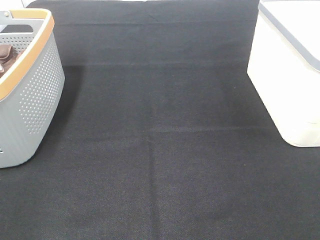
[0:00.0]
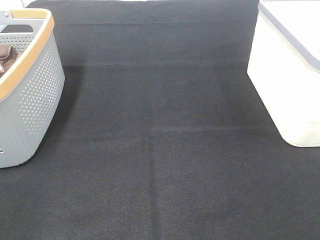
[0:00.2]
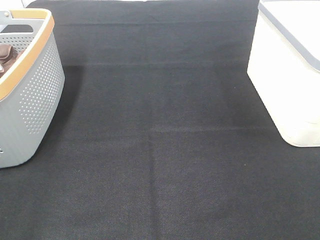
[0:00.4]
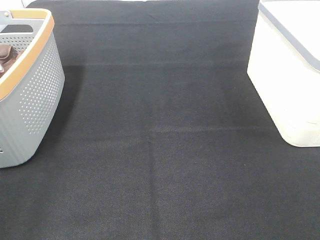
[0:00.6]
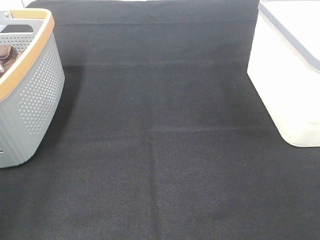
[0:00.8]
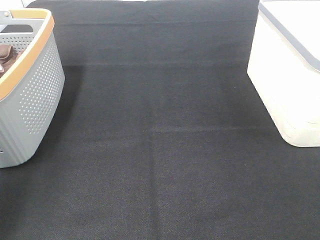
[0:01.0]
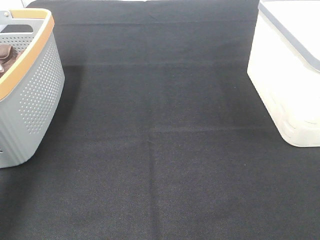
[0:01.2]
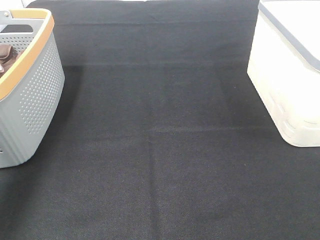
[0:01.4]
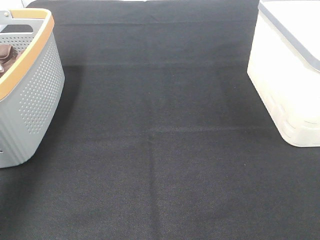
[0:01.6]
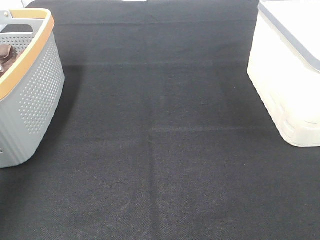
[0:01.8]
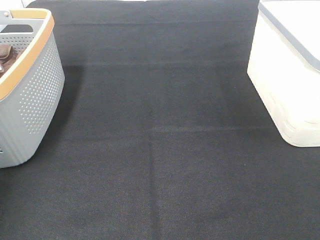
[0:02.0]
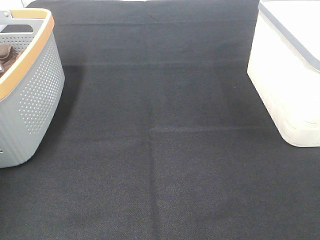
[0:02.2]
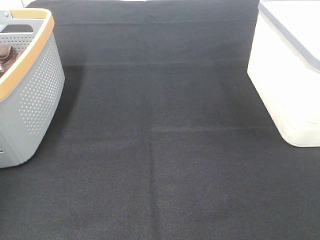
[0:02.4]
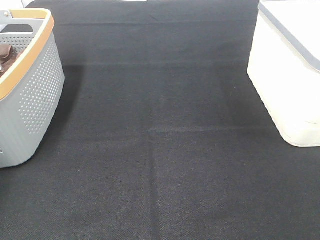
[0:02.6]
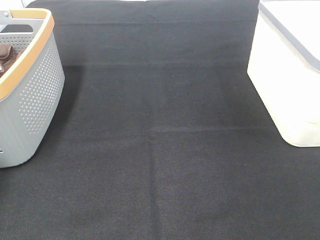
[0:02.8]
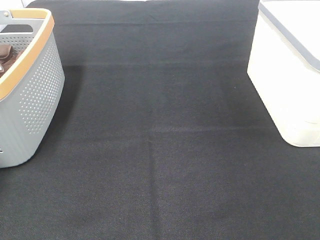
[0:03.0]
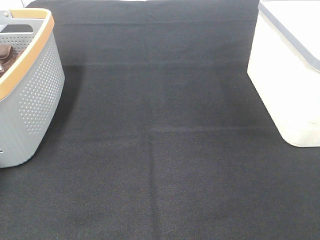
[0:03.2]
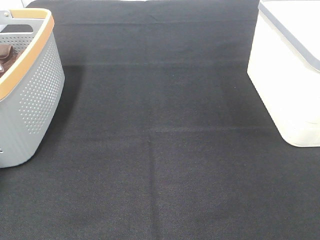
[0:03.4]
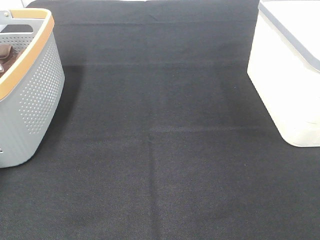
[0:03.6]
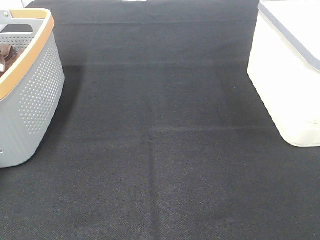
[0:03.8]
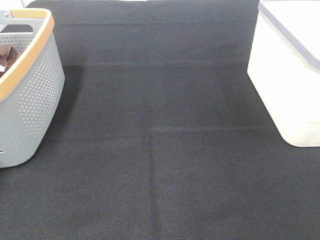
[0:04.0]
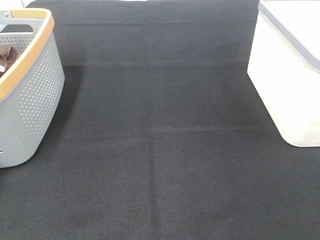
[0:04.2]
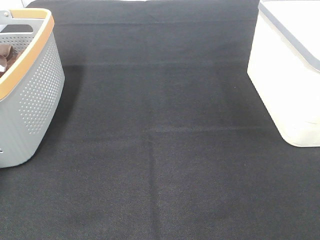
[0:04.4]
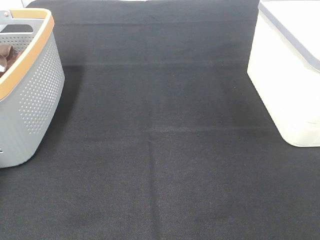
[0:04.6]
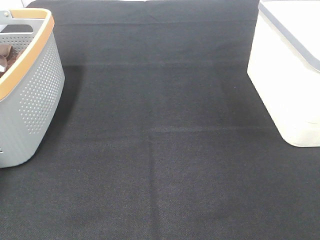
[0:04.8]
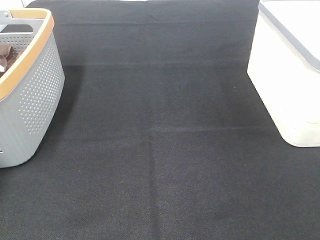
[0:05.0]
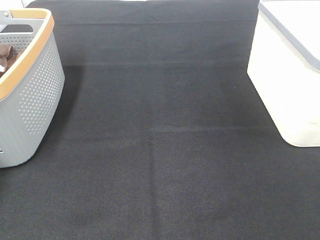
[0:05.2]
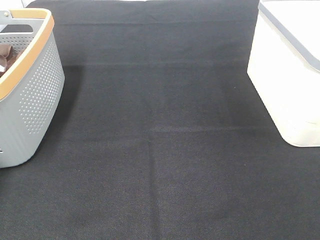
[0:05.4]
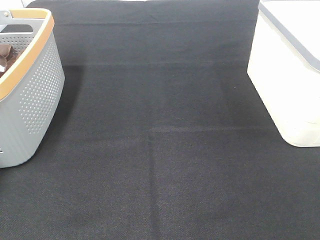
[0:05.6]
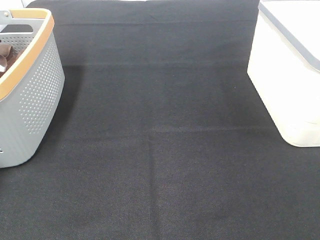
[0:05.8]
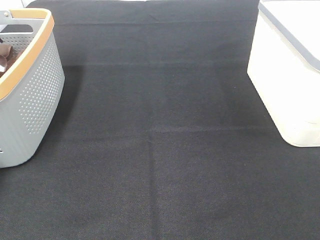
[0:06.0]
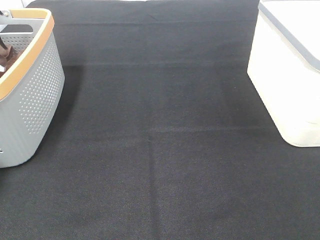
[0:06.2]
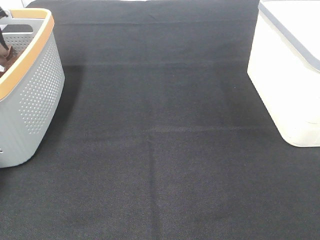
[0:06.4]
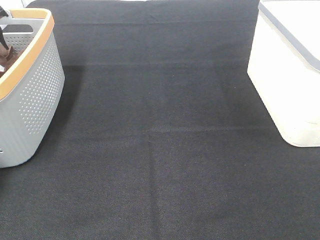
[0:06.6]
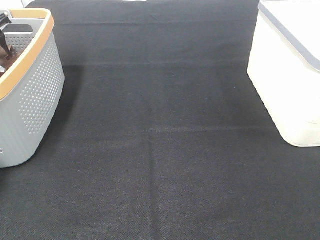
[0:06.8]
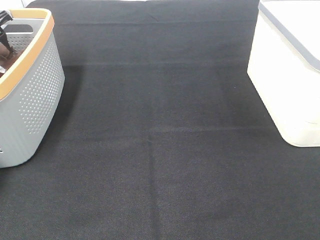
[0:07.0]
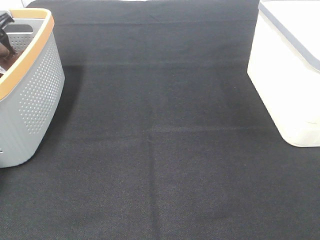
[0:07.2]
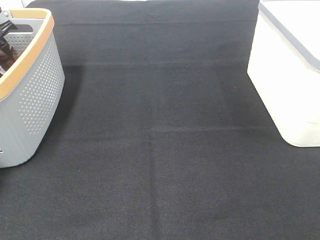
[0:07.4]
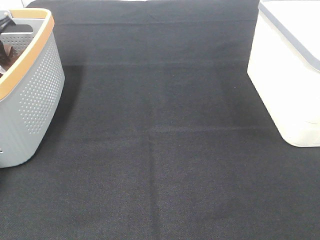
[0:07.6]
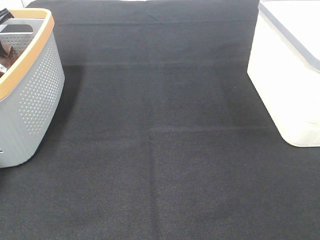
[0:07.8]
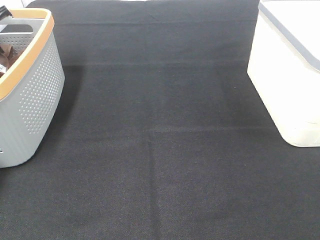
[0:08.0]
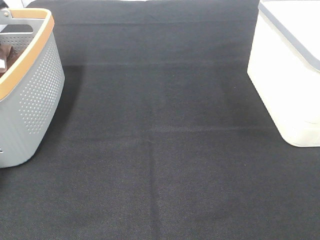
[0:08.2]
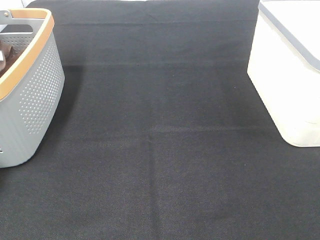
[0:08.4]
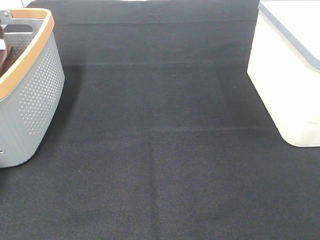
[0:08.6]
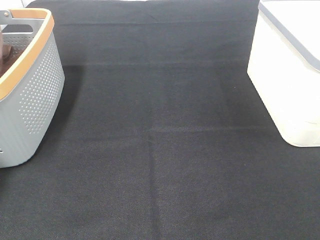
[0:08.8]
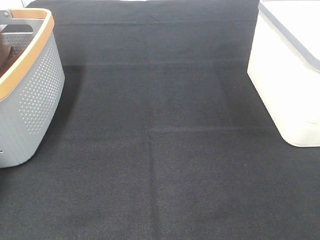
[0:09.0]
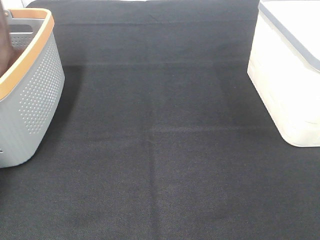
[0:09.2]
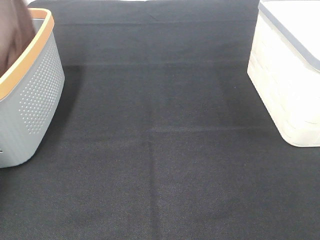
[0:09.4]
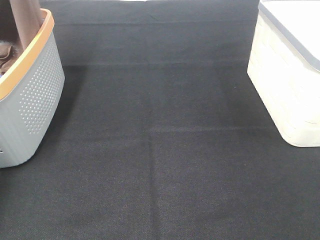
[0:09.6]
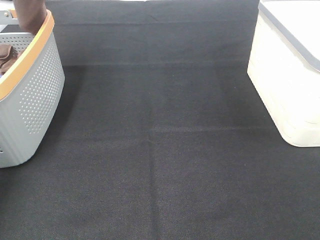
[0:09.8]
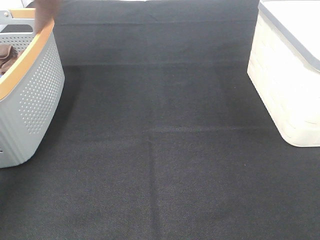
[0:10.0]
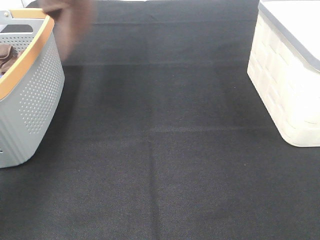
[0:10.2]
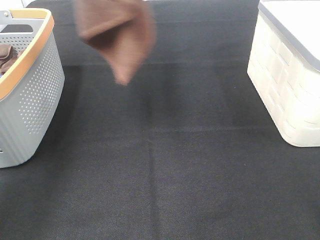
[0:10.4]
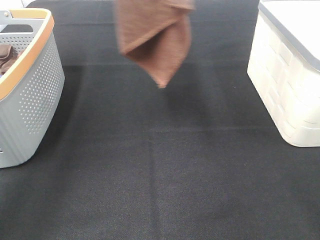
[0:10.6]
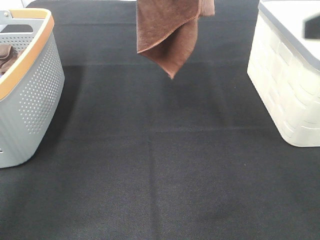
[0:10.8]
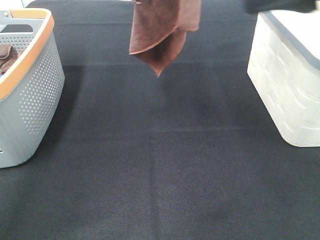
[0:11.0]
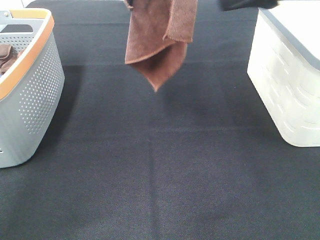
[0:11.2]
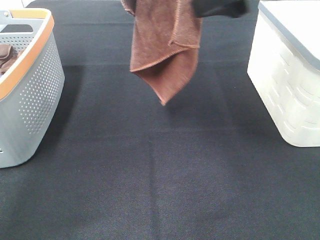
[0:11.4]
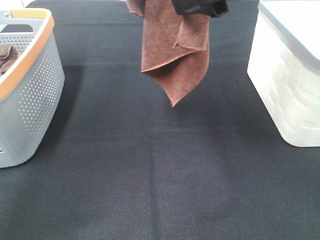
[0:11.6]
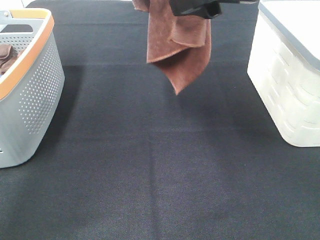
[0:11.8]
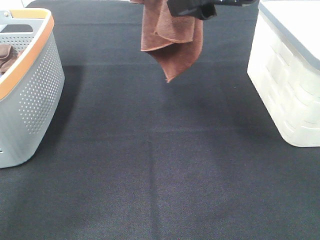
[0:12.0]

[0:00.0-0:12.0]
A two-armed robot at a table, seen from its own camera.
Task of the whole recording: Remove the towel and place it.
0:00.0 to 0:01.6: The left gripper goes about 35 cm forward.
0:01.6 to 0:03.0: The left gripper heads forward, to the left and downward, covering some 20 cm.
0:07.6 to 0:09.0: The left gripper shifts some 20 cm upward.
0:09.0 to 0:10.4: The left gripper heads to the right, upward and backward, covering some 30 cm. Meanwhile the right gripper is displaced forward by roughly 10 cm.
0:10.4 to 0:12.0: The left gripper moves to the right, about 10 cm; the right gripper shifts approximately 25 cm forward and to the left.

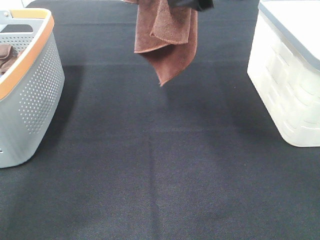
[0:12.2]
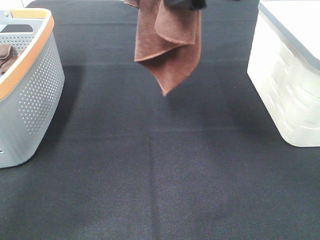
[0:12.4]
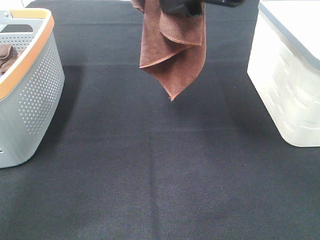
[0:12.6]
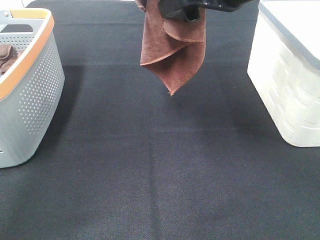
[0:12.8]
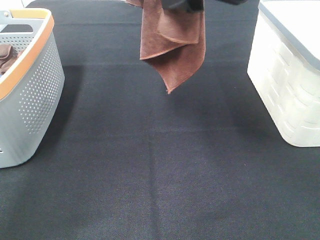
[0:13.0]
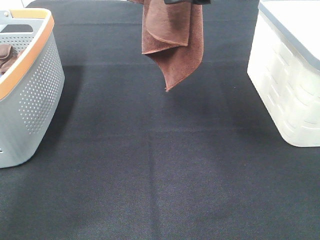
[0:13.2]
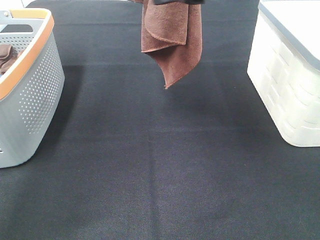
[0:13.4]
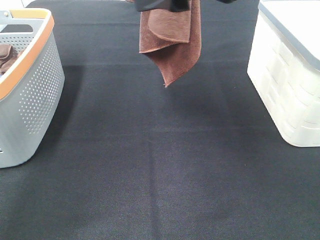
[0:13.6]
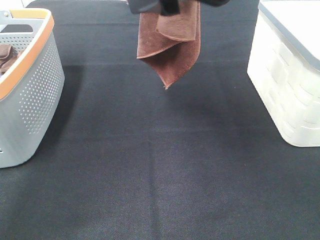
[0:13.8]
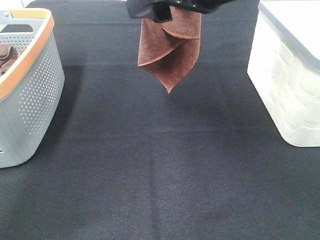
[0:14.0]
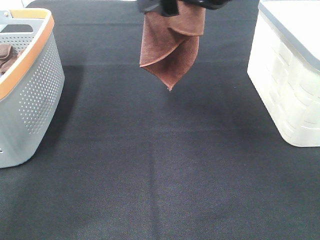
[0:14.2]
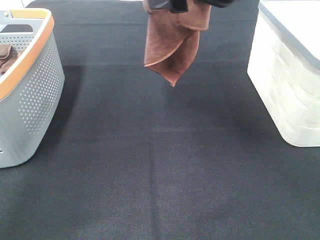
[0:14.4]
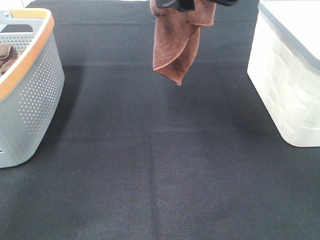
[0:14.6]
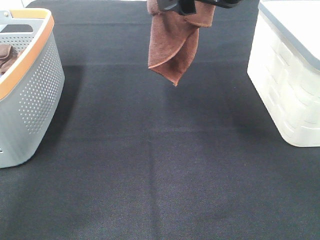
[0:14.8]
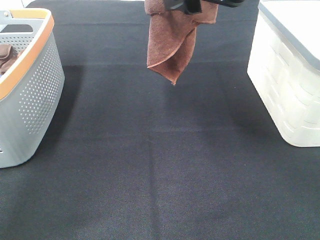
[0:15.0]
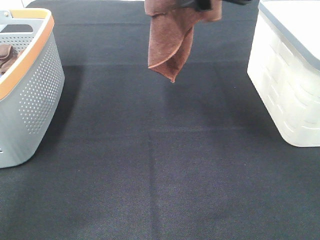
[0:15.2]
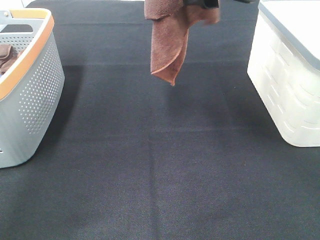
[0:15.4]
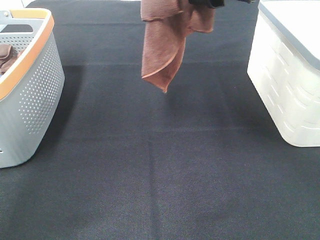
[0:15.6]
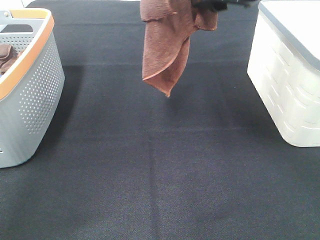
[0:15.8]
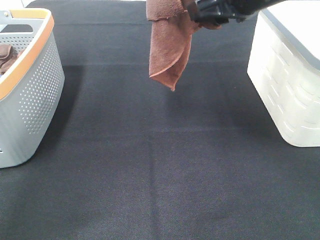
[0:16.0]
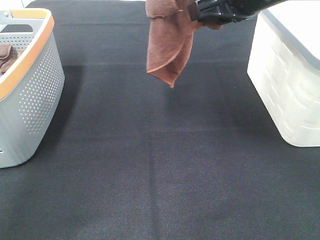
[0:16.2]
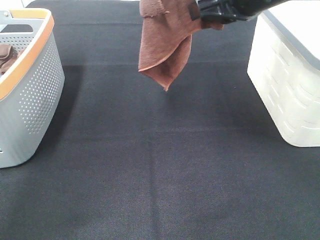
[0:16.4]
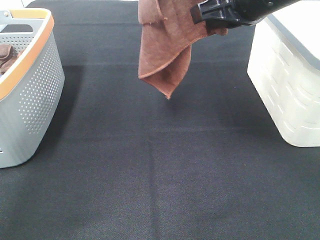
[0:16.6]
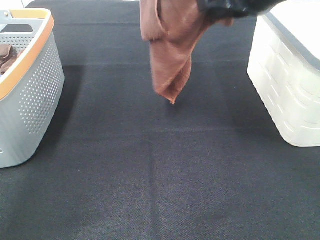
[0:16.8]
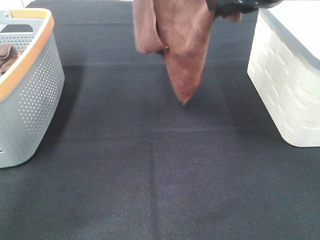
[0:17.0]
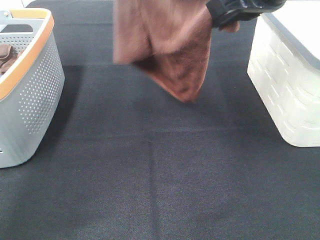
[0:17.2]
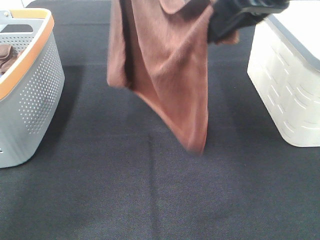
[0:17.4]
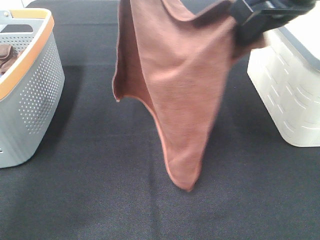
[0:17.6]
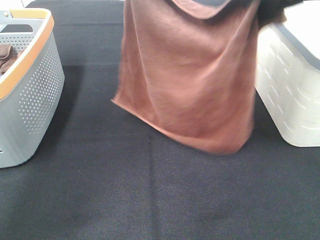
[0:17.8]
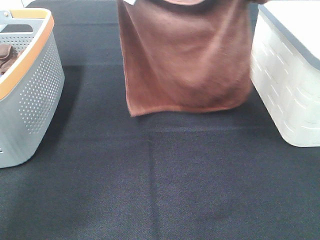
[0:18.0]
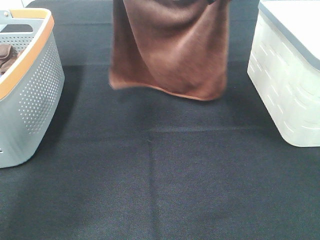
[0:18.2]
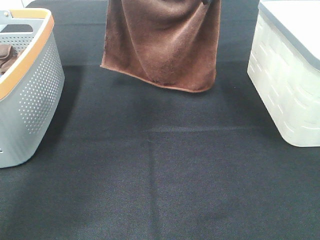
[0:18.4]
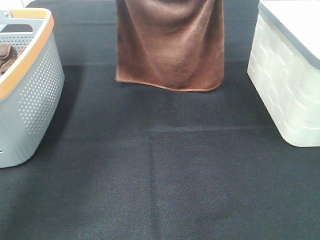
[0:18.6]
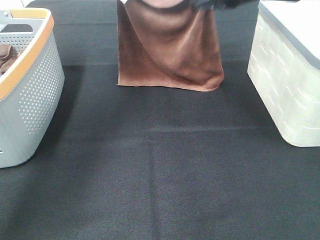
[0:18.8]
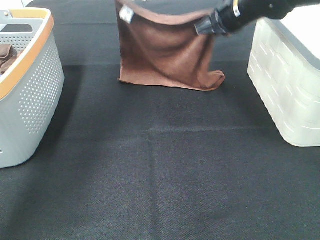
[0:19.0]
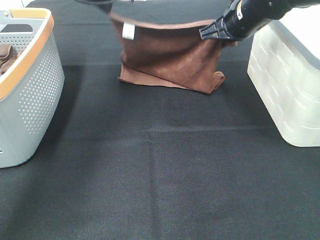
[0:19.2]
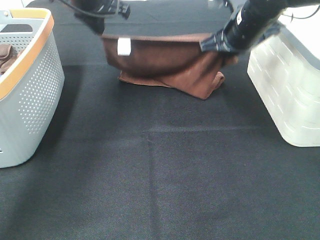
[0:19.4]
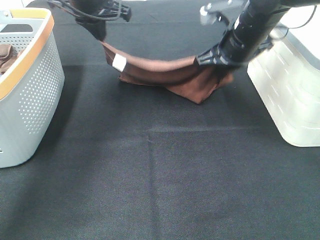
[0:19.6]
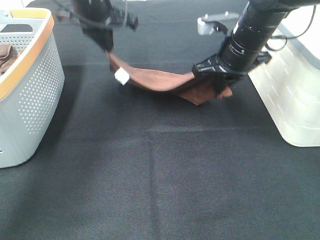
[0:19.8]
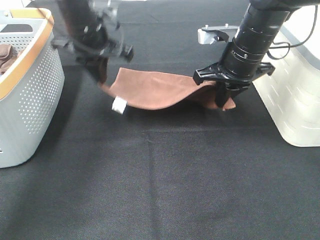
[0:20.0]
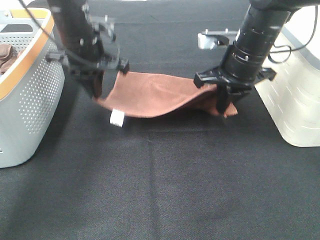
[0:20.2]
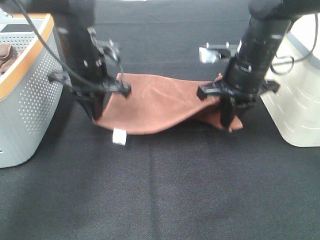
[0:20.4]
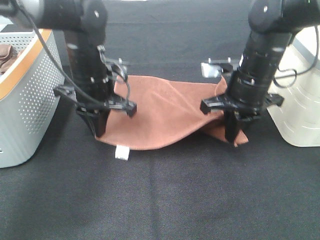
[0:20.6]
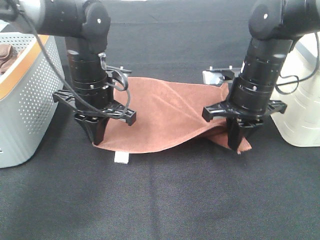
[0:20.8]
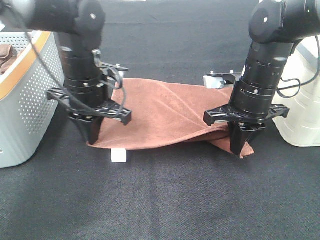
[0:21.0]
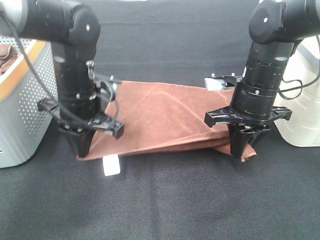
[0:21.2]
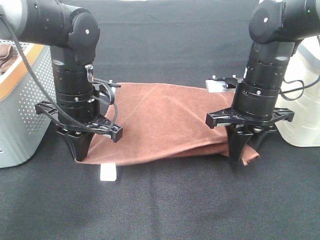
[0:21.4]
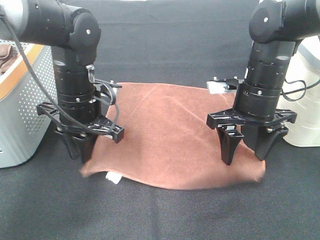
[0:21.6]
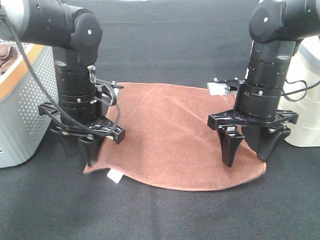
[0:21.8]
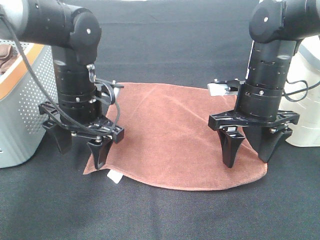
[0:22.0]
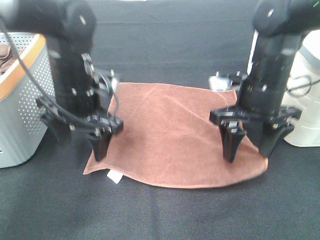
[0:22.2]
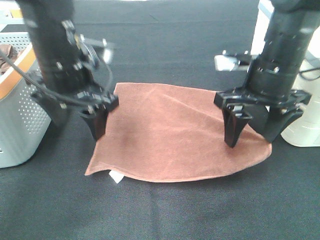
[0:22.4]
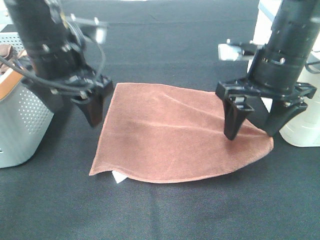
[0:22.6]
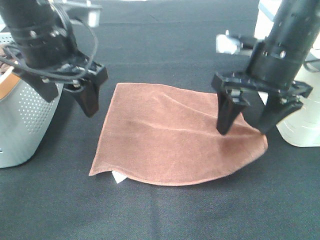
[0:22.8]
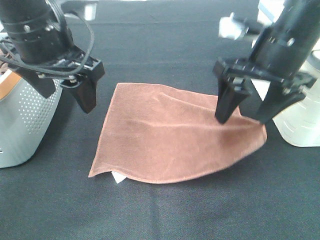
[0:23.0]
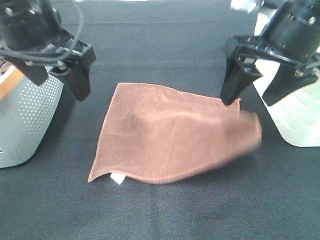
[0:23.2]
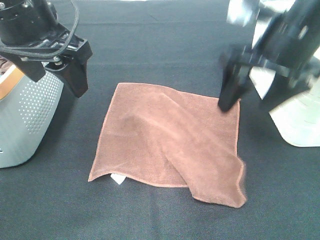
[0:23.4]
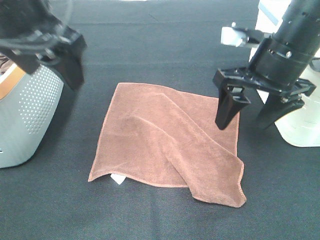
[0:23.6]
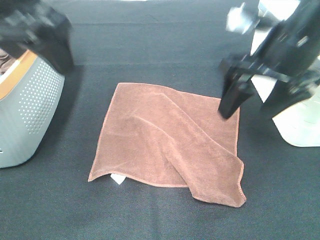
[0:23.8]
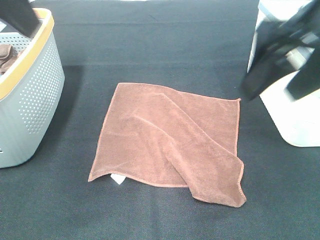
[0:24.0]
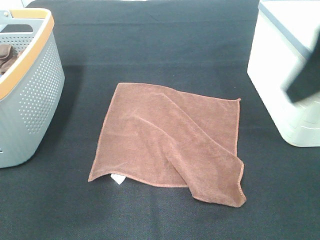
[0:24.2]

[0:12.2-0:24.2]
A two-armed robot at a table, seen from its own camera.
Task of the whole recording: Remove the towel and place it.
Step, 0:13.8 to 0:16.4: Right hand: spread the brown towel flat on the table.
0:12.2 to 0:13.8: The grippers make only small movements.
0:13.8 to 0:15.2: The right gripper moves about 5 cm.
0:15.2 to 0:16.6: The right gripper closes.
0:16.6 to 0:18.2: The right gripper travels forward by approximately 5 cm, while the left gripper shifts some 15 cm downward and forward.
0:18.2 to 0:19.8: The two grippers go about 15 cm downward.
0:19.8 to 0:21.2: The right gripper travels backward by roughly 5 cm, while the left gripper goes some 15 cm backward and downward.
0:21.2 to 0:22.6: Both grippers travel together upward, some 10 cm. The left gripper opens up; the right gripper opens up.
0:22.6 to 0:24.2: The right gripper goes some 20 cm backward and upward; the left gripper shifts some 20 cm backward, upward and to the left.
